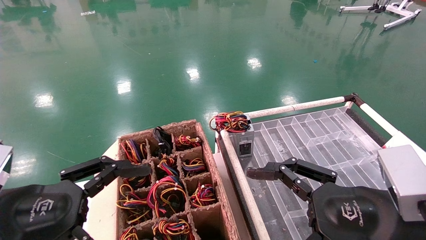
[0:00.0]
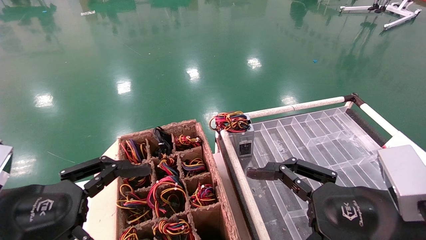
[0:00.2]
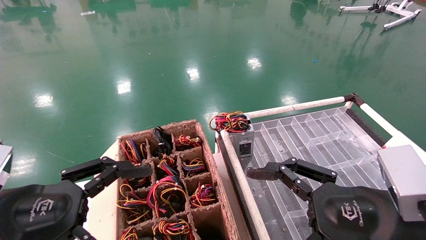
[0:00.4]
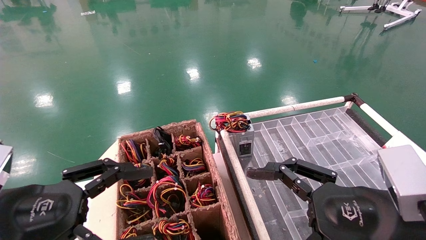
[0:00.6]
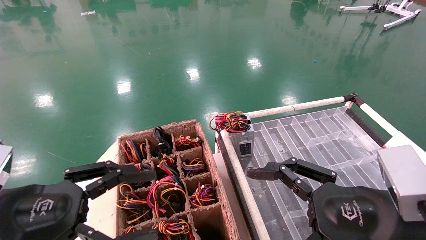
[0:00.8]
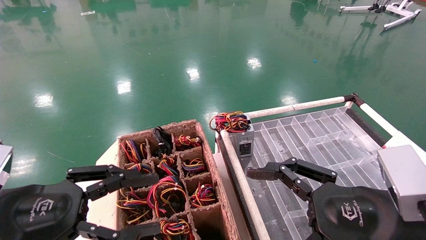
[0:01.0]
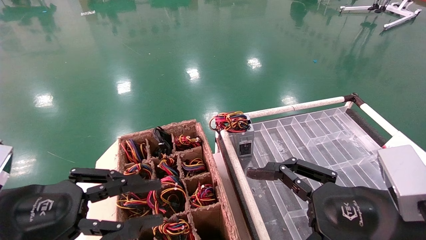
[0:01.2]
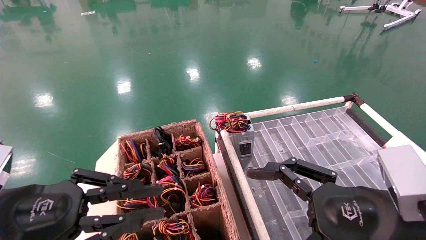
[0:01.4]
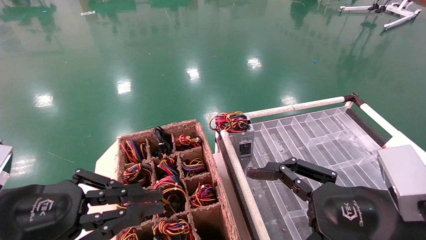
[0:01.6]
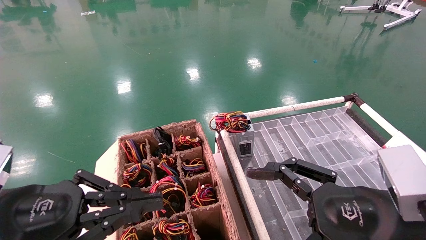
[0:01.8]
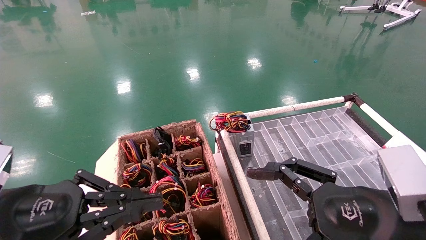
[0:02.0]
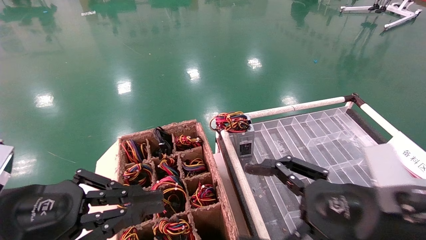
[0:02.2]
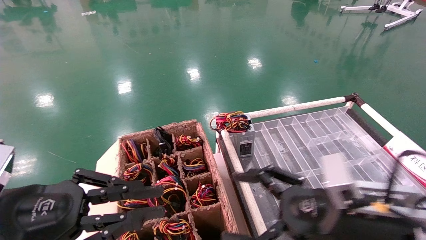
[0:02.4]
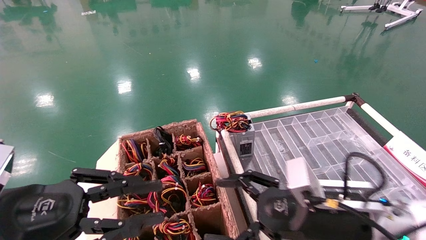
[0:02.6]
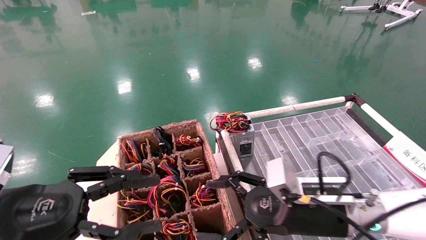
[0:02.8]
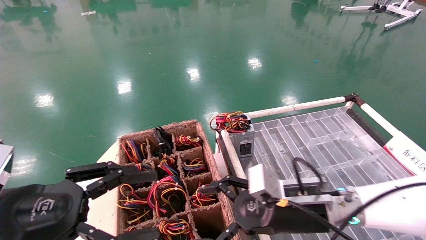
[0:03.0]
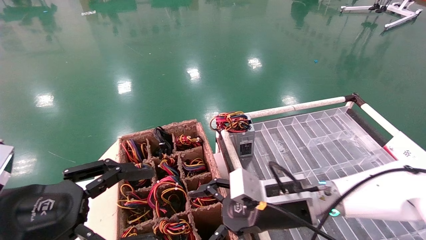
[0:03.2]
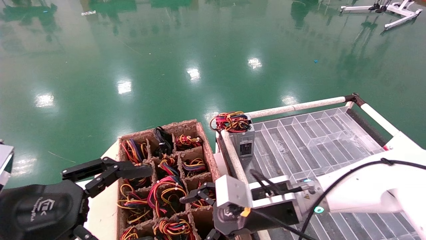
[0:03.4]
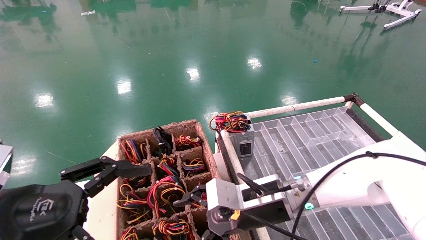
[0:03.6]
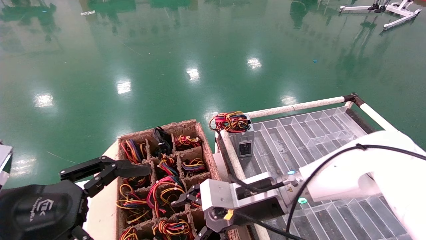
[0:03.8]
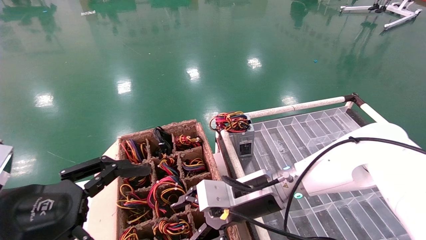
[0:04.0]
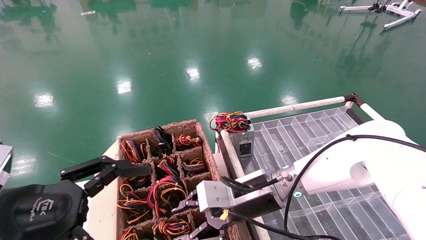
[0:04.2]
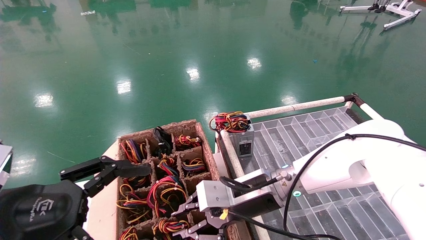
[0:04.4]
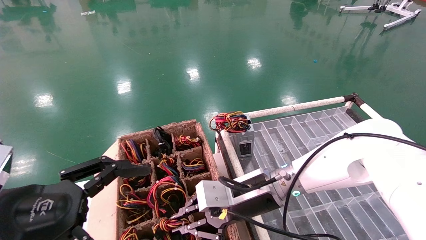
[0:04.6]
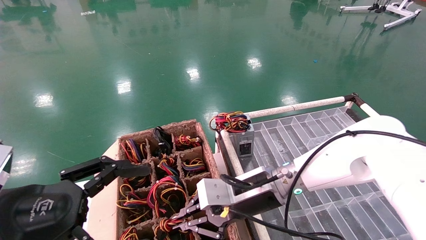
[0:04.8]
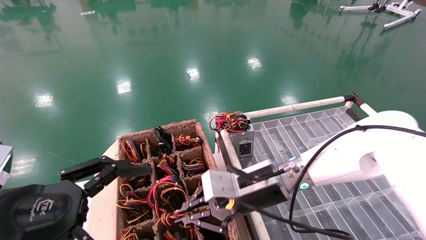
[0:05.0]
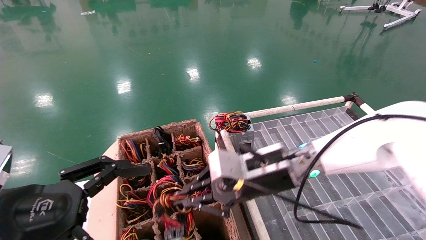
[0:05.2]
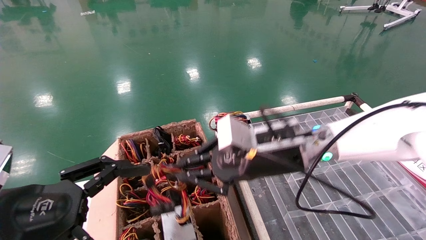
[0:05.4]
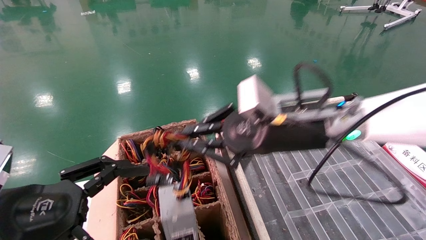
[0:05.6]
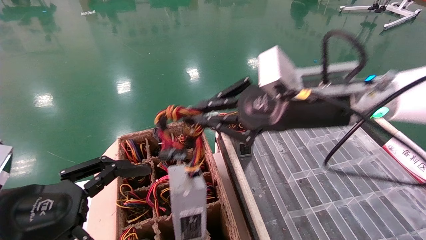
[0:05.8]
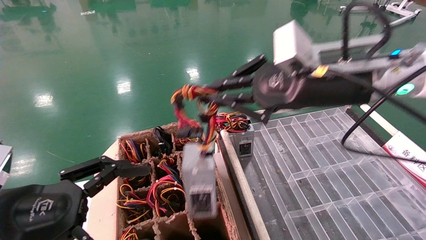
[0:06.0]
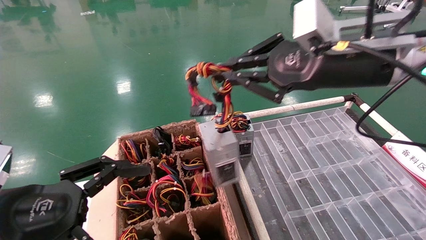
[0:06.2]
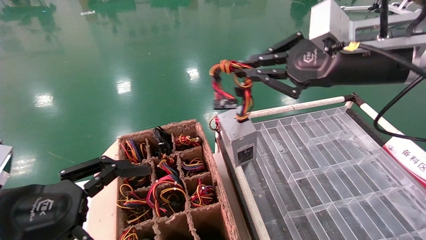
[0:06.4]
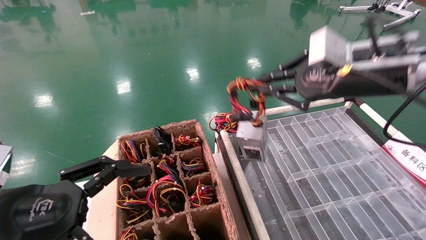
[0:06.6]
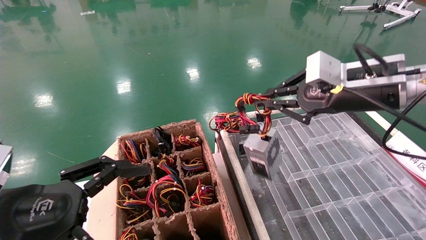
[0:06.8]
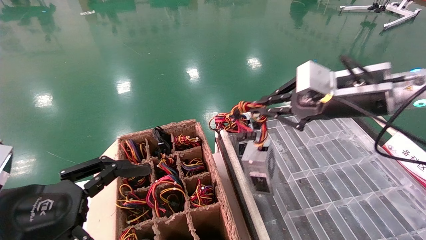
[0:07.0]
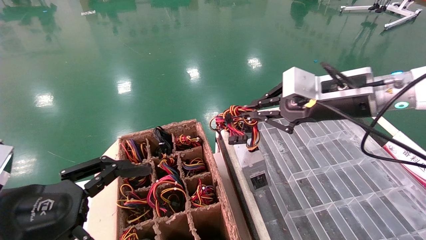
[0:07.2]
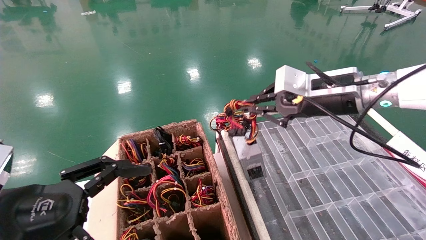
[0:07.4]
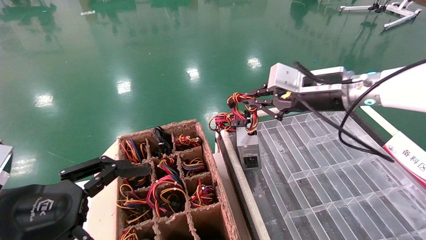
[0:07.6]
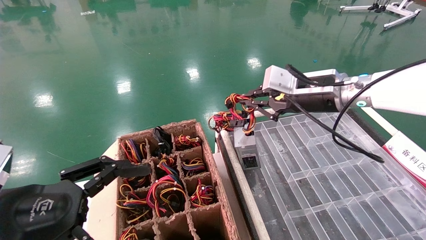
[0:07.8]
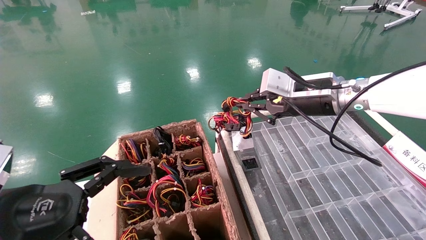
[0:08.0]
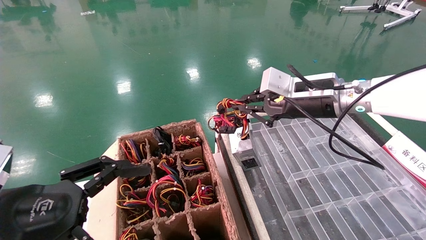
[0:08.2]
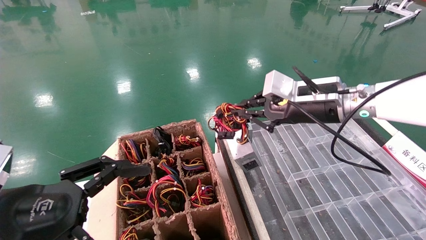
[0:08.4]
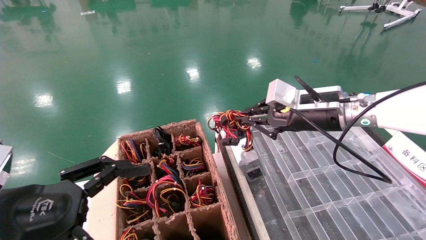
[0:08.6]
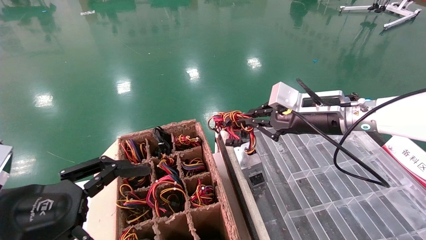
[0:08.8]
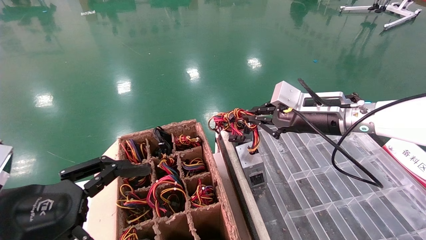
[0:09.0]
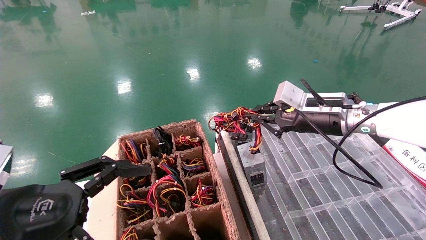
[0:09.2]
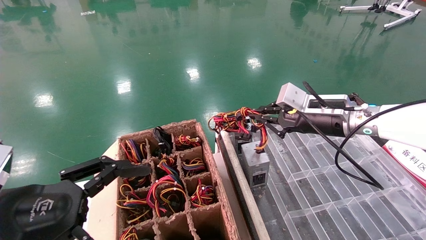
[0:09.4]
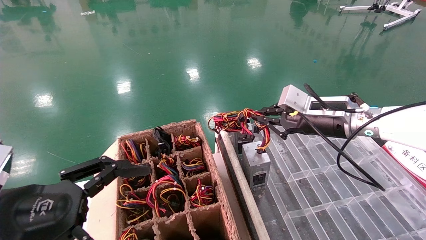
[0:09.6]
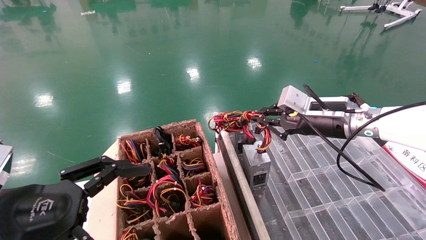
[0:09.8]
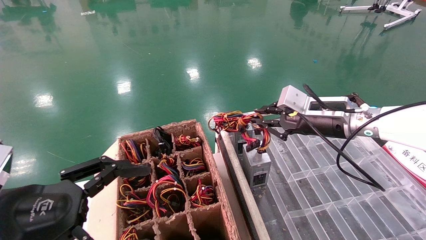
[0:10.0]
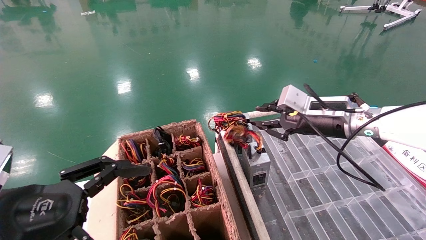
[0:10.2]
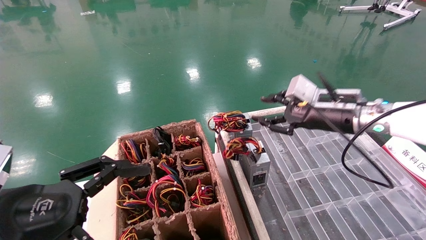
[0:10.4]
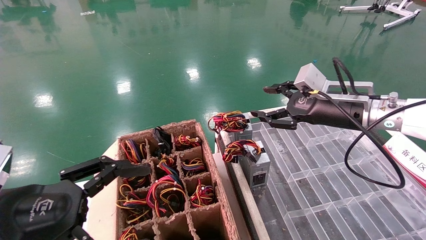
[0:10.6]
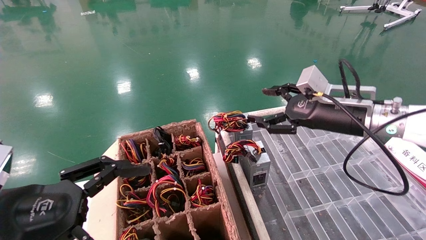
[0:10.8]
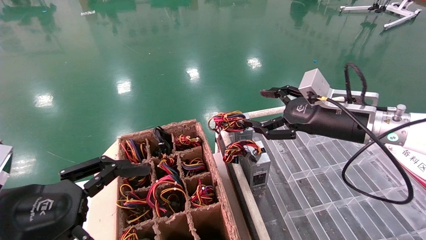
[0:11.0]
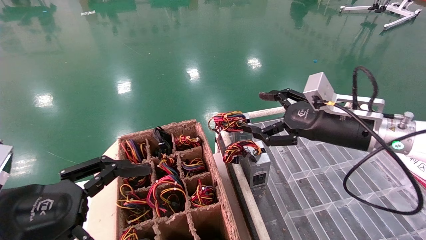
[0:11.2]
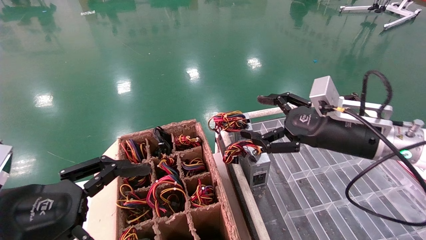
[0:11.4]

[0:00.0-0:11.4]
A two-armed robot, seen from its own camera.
Step, 0:02.0 to 0:05.0: Grab and lift the power supply from the large box.
Step, 0:05.2 to 0:10.0: Place the power supply on the operating table.
0:00.0 to 0:01.4: The left gripper closes its fingers.
0:01.4 to 0:02.8: The right gripper heads forward, to the left and downward, covering roughly 15 cm.
0:02.8 to 0:04.2: The right gripper is displaced to the left and forward by approximately 10 cm, and closes up. Meanwhile the left gripper opens up.
0:04.2 to 0:05.6: The right gripper is displaced upward by about 15 cm, and closes.
0:05.6 to 0:07.2: The right gripper shifts approximately 10 cm to the right.
0:07.2 to 0:08.6: The right gripper changes place by roughly 5 cm.
0:08.6 to 0:10.0: There are only small adjustments of the grippers.
0:10.0 to 0:11.4: The right gripper heads backward, covering roughly 5 cm, and opens up.
